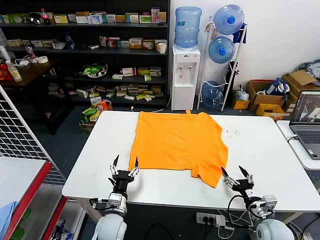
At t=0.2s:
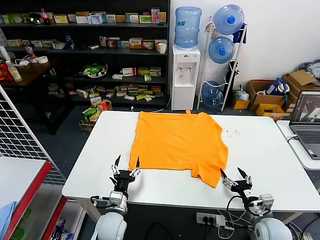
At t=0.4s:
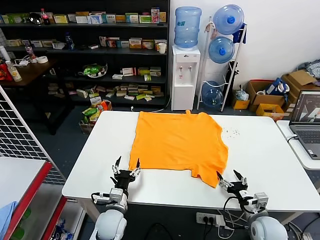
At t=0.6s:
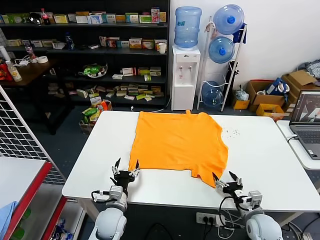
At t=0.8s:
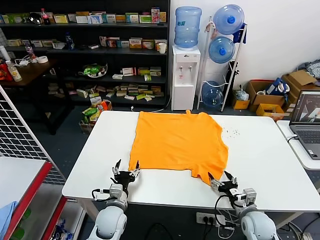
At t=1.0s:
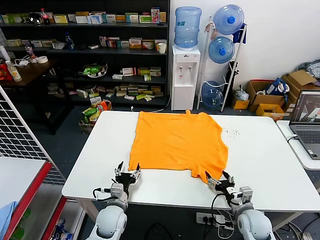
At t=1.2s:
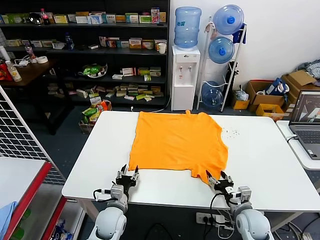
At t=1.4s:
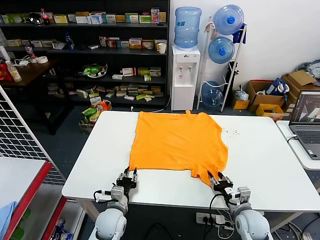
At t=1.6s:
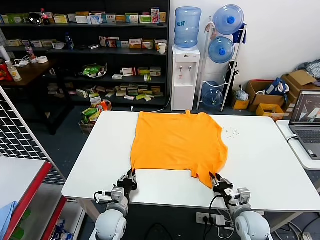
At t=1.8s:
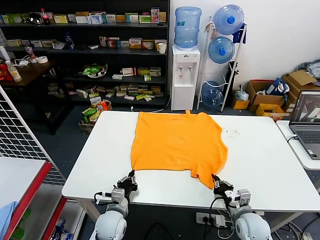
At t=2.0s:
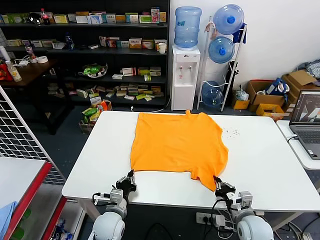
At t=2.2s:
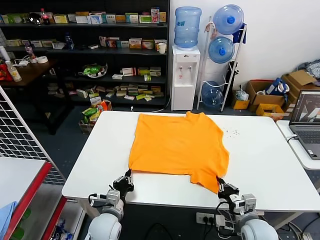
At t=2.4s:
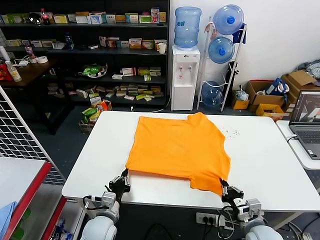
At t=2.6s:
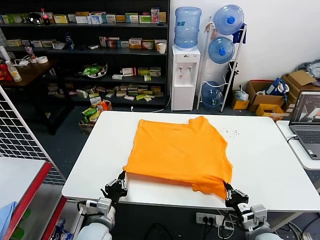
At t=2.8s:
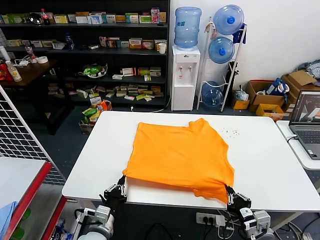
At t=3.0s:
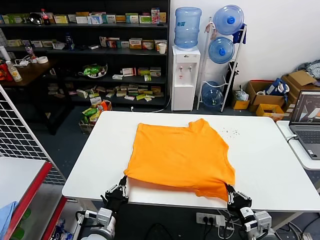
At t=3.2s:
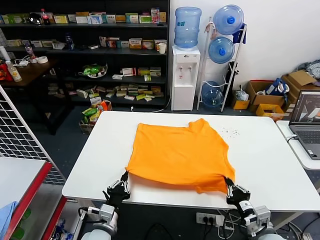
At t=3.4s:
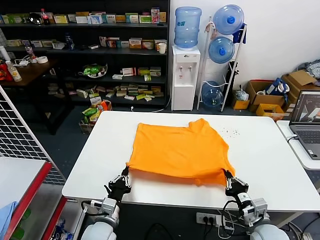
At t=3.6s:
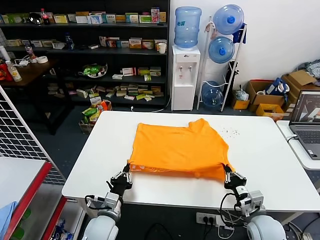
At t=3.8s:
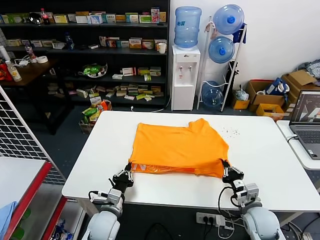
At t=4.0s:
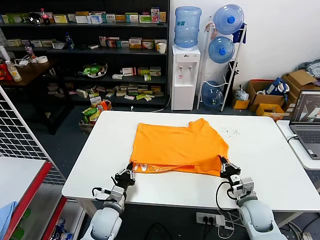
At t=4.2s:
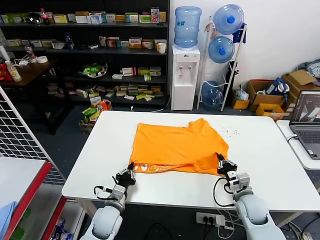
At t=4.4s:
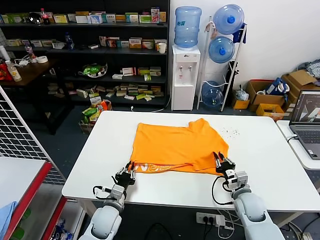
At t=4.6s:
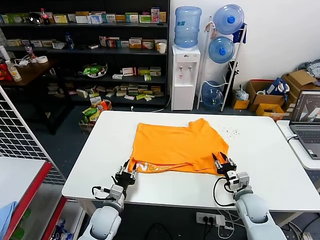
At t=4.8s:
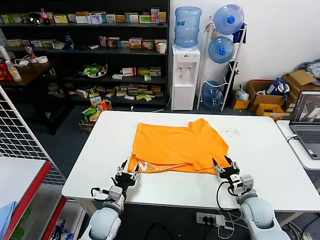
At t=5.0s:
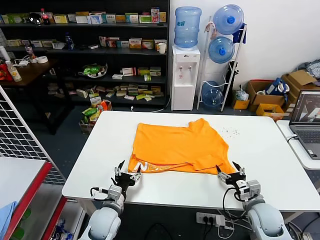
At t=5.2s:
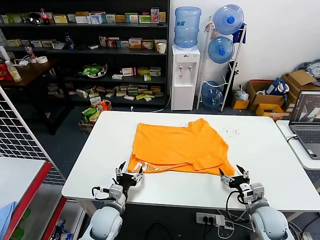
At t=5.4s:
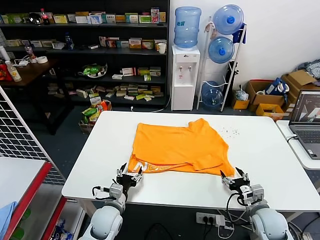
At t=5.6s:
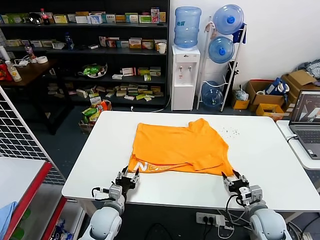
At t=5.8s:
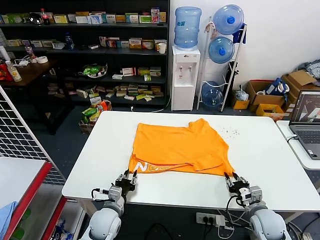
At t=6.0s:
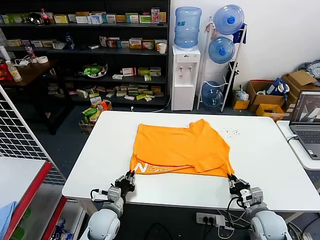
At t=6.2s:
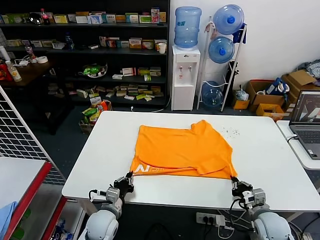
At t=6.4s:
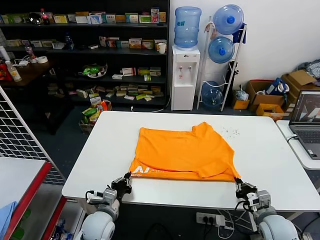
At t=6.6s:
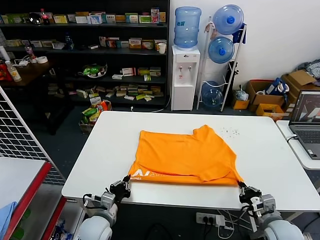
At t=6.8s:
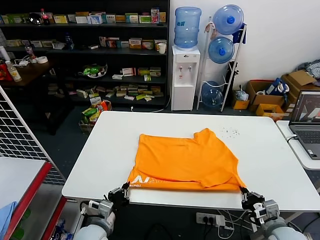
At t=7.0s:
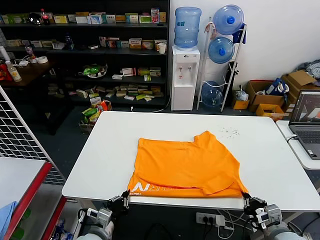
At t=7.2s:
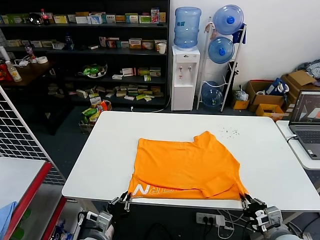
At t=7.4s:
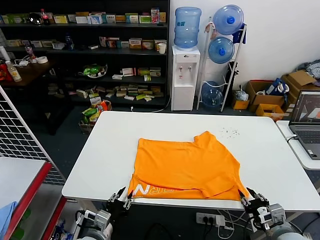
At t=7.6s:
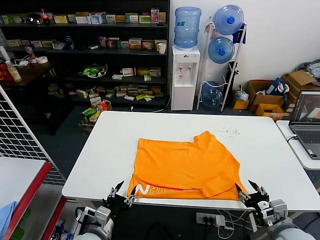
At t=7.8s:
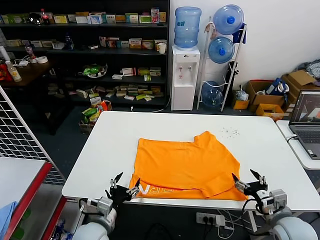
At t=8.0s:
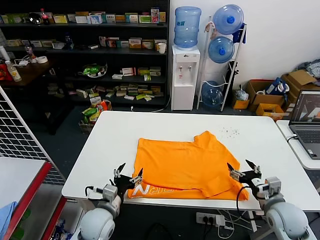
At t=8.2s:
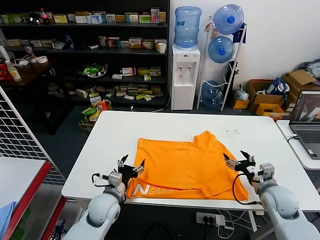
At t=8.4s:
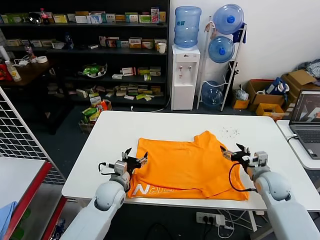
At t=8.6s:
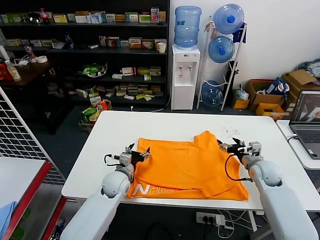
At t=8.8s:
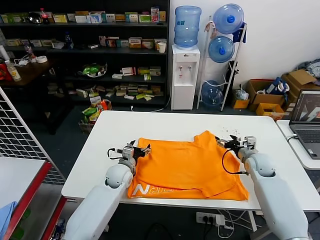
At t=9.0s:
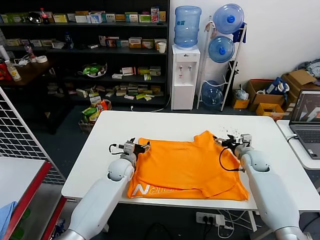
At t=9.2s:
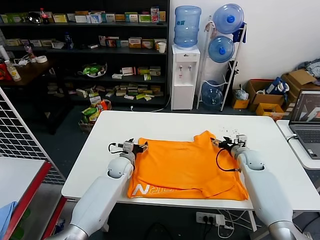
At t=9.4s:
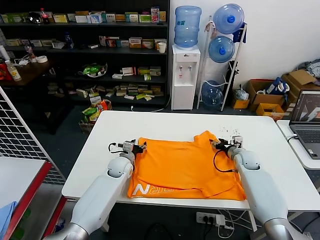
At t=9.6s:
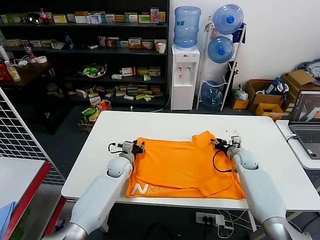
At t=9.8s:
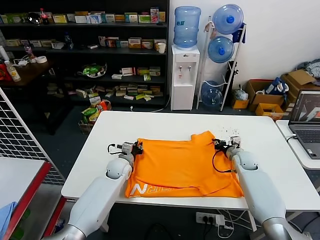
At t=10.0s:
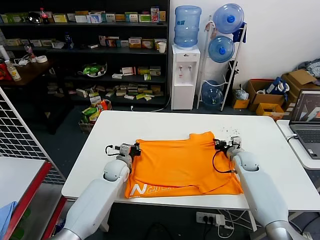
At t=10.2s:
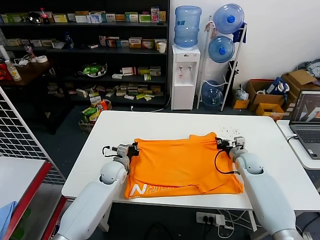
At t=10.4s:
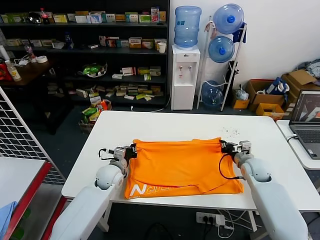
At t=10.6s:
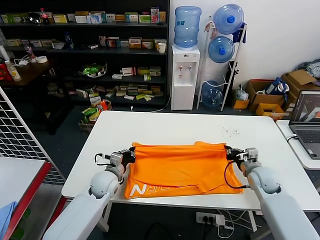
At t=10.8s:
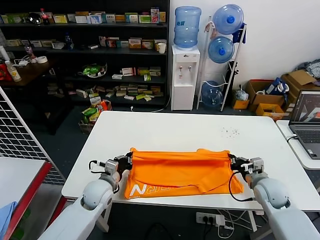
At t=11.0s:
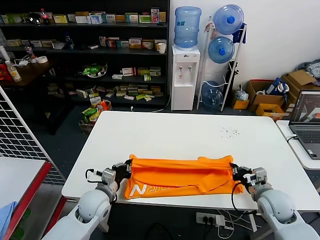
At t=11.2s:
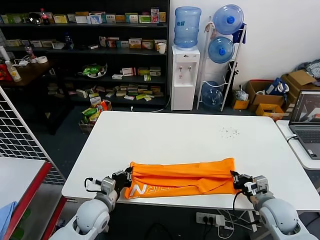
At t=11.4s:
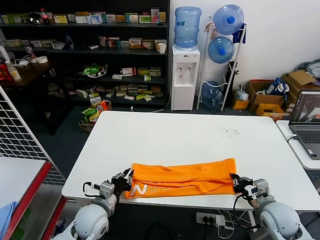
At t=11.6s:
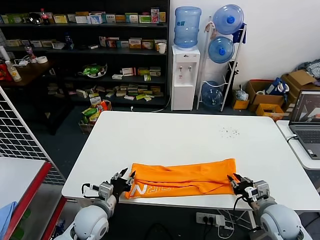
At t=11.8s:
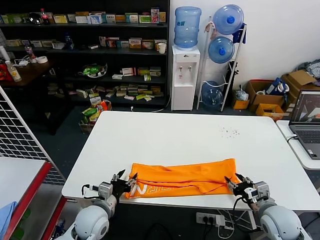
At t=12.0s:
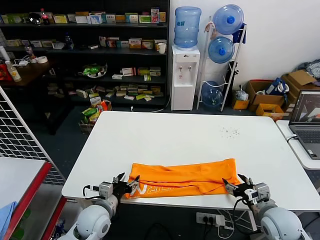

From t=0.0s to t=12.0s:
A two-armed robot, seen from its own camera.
Task of the whole recording: fold and organize the clothes.
Step, from t=0.0s to t=1.8s: use both grippers simultaneously to clamp the lower edge of the clothing fabric.
Step, from t=2.0s to t=4.4s: use both grippers to drag the lower edge of the fabric forward and fold it over the upper edge.
Step, from t=4.6s to t=7.2s: Drag the clothes downward with both gripper.
Step, from t=7.4s to t=10.0s: use both grippers simultaneously to clamp the upper edge of the clothing fabric.
Step, from t=10.2s to t=11.4s: use both grippers to drag the upper edge of the fabric backward and fold it over the lower edge.
From t=1.6s to t=3.0s: The grippers both shift backward and upward by roughly 10 cm.
From t=3.0s to t=4.4s: The left gripper moves forward and downward, roughly 10 cm. Meanwhile the right gripper goes some 15 cm forward and downward.
From t=4.4s to t=6.0s: The right gripper travels backward by roughly 5 cm, and opens and closes again. Meanwhile the left gripper opens, then closes once more.
From t=6.0s to t=7.6s: The right gripper goes roughly 10 cm upward and backward, and opens, while the left gripper goes approximately 10 cm backward and upward, and opens its fingers.
From t=7.6s to t=9.0s: Both grippers move forward, some 30 cm.
From t=9.0s to t=10.4s: The right gripper goes approximately 5 cm backward, and closes, while the left gripper shifts by some 5 cm, and closes its fingers.
From t=10.4s to t=12.0s: Both grippers travel together backward, some 15 cm. The right gripper opens up; the left gripper opens up.

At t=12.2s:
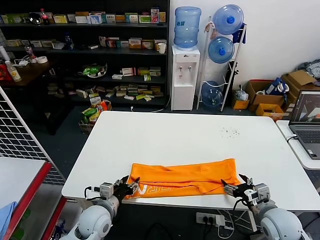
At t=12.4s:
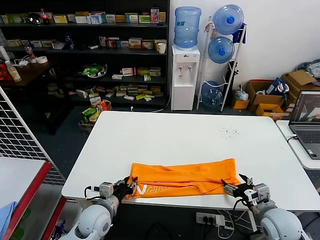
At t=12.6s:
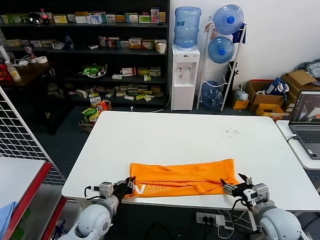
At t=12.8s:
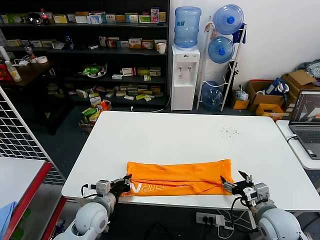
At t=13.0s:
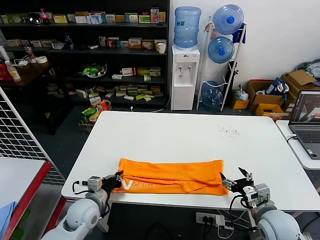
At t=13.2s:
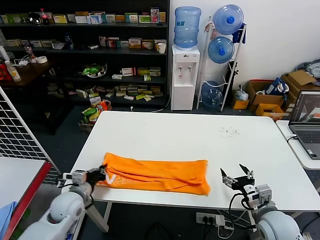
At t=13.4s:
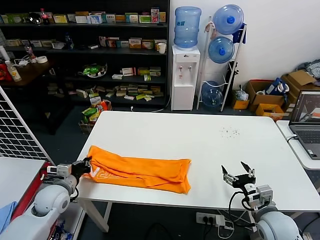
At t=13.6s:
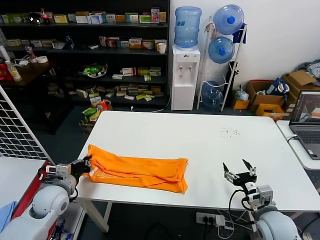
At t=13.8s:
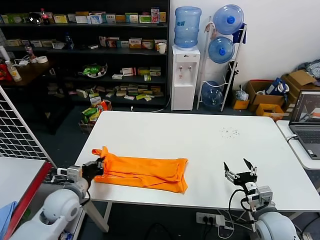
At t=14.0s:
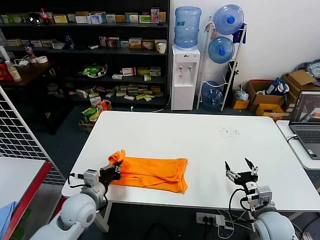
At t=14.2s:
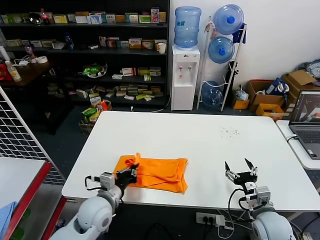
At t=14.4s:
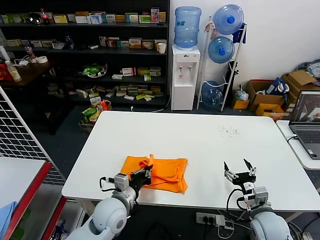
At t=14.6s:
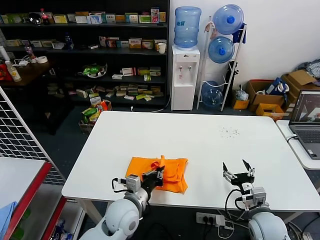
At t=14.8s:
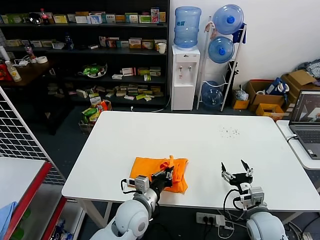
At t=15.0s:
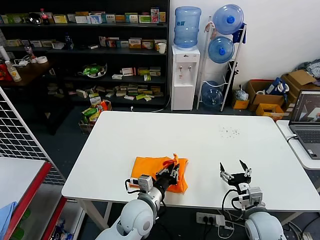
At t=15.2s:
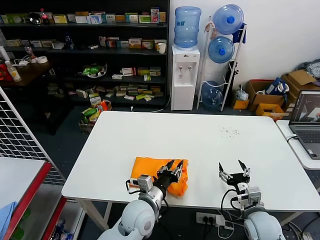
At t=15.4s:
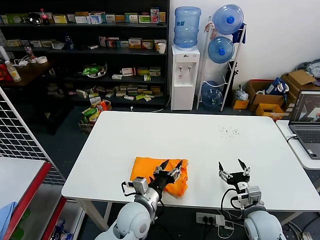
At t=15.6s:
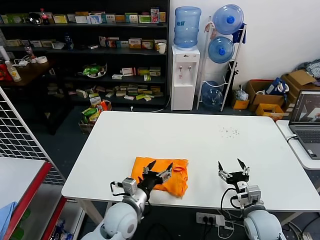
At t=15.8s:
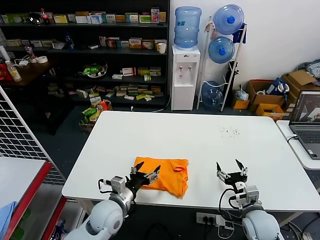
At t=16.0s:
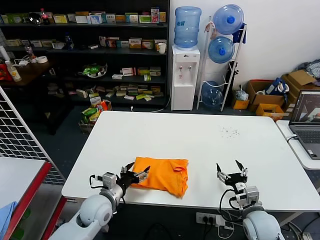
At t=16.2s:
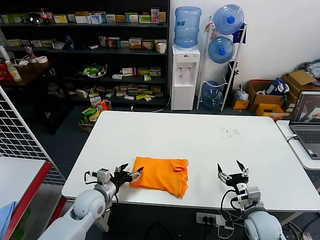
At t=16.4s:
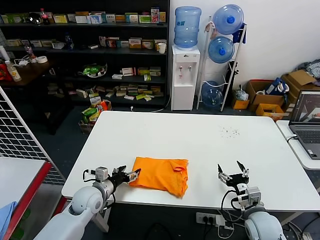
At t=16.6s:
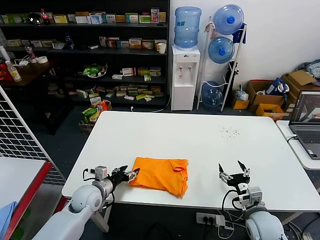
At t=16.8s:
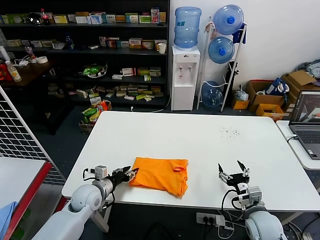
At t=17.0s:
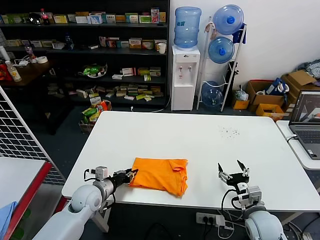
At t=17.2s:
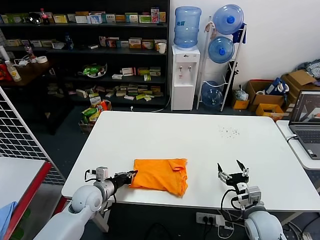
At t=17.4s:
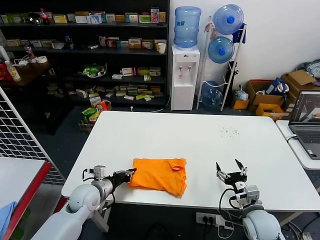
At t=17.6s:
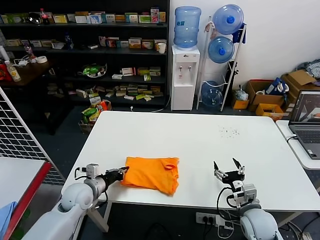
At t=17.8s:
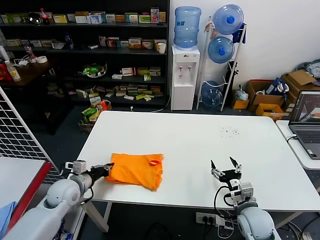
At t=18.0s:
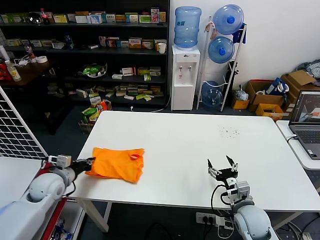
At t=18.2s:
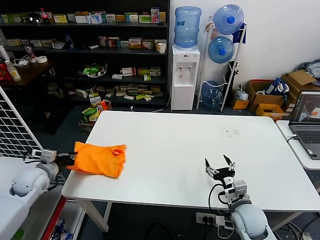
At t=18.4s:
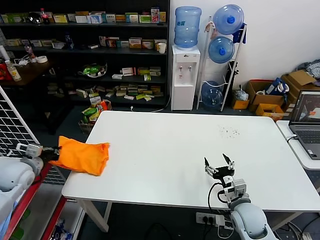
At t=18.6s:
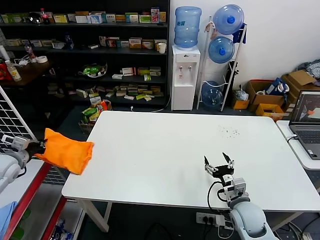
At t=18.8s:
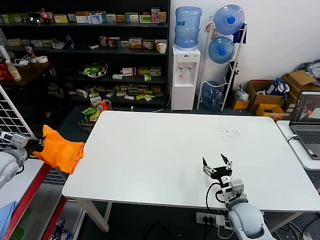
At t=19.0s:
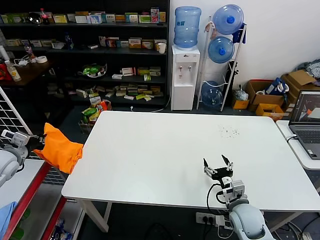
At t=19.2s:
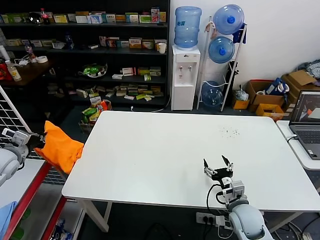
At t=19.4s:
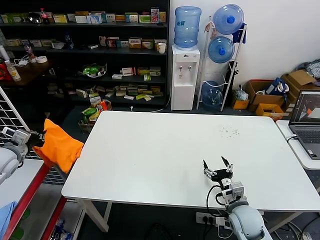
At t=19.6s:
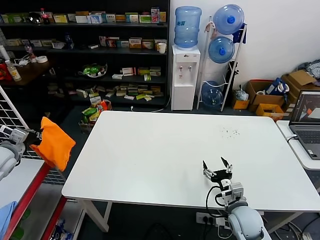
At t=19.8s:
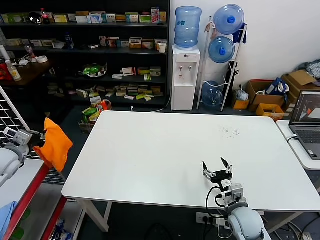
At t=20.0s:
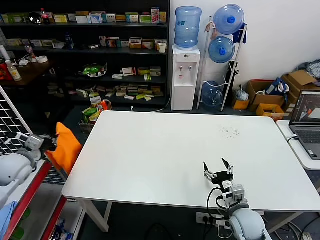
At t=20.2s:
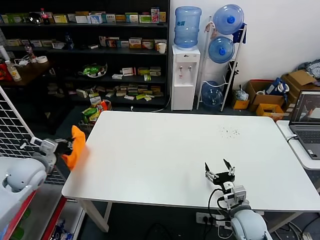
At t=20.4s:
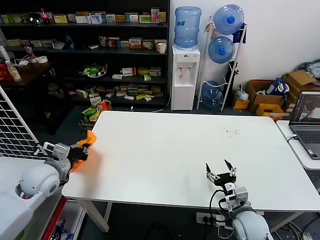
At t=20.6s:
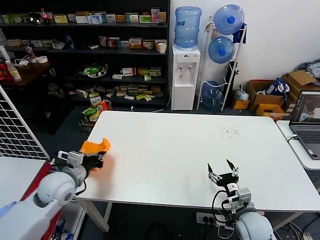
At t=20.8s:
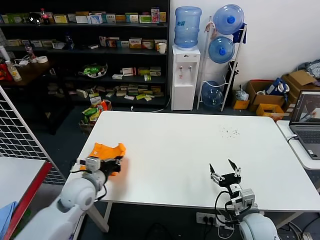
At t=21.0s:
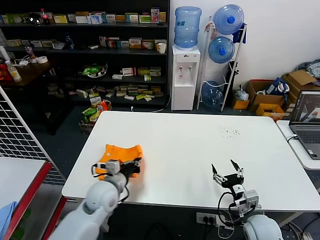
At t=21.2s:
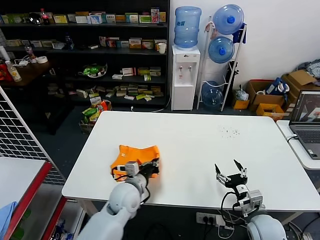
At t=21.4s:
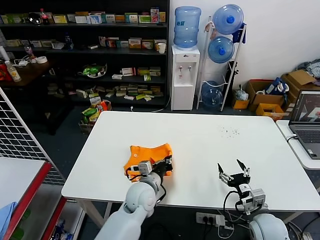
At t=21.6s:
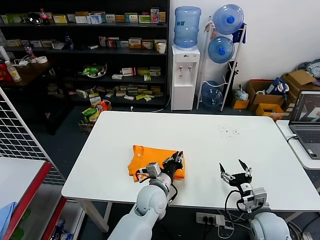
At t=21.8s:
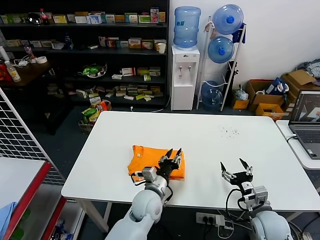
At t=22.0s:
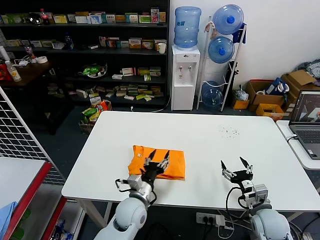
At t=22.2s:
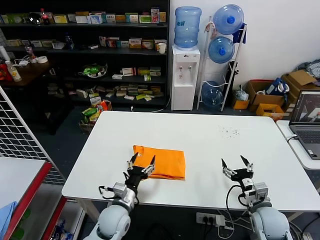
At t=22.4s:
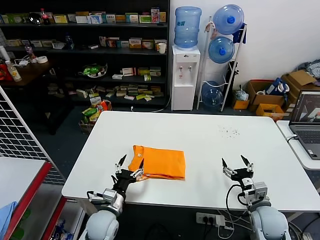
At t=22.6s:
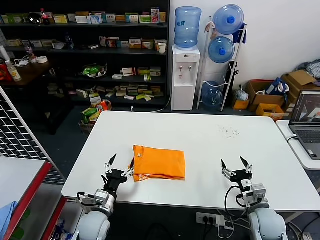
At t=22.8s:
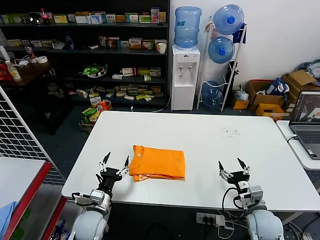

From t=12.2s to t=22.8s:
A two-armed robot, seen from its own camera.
Task of the whole recording: fold and organize the clothes.
Step, from t=13.0s to t=15.0s: use the left gripper to drag the left edge of the fabric to the left and folds it over the right edge.
Step, from t=15.2s to t=21.6s: Flip the folded clothes over with left gripper.
From t=12.2s to t=13.8s: The left gripper shifts some 10 cm to the left and upward, and closes its fingers.
From t=13.8s to t=15.2s: The left gripper is displaced to the right by roughly 25 cm, and opens.
From t=15.2s to t=16.8s: The left gripper heads to the left, covering about 20 cm, and opens, then closes again.
From t=16.8s to t=18.2s: The left gripper is displaced to the left and upward by some 20 cm, and closes its fingers.
From t=18.2s to t=19.8s: The left gripper shifts about 10 cm upward and to the left.
From t=19.8s to t=21.2s: The left gripper travels to the right by approximately 35 cm. Meanwhile the right gripper moves approximately 5 cm.
From t=21.2s to t=22.8s: The left gripper travels to the left, downward and backward by some 15 cm, and opens.
